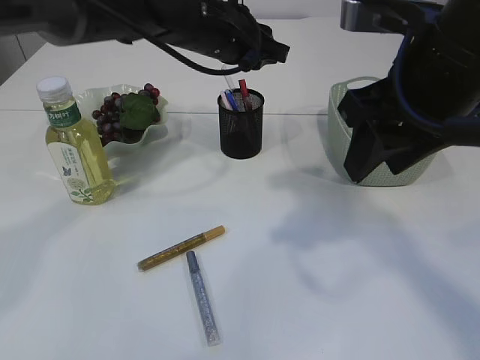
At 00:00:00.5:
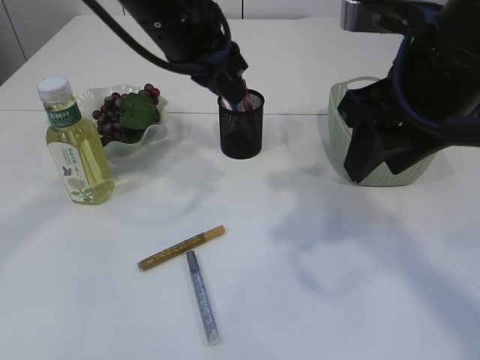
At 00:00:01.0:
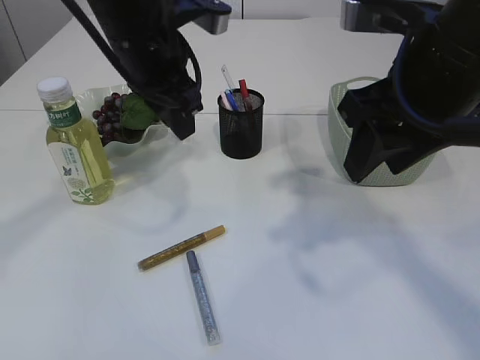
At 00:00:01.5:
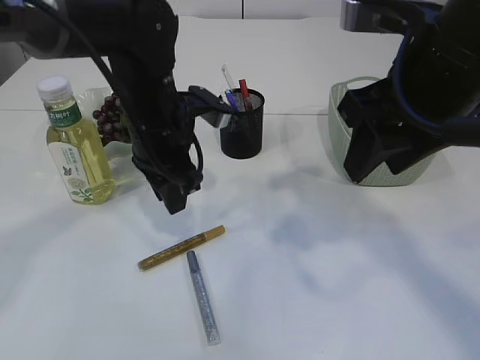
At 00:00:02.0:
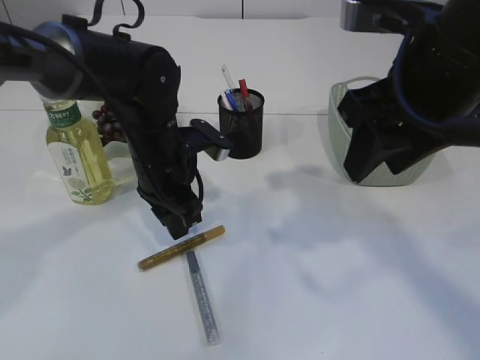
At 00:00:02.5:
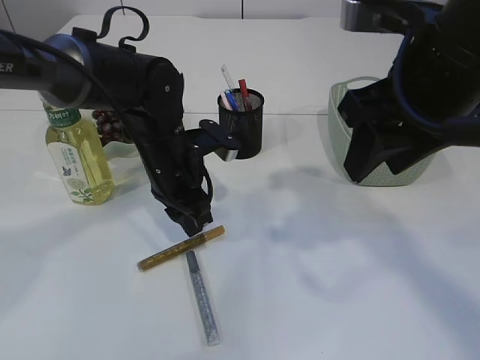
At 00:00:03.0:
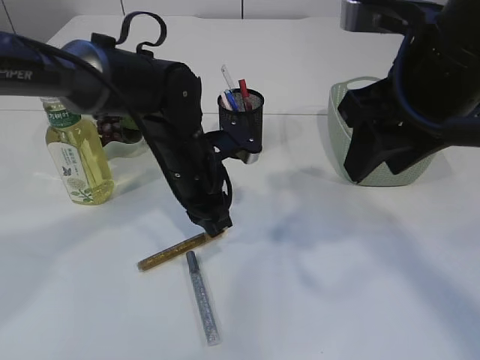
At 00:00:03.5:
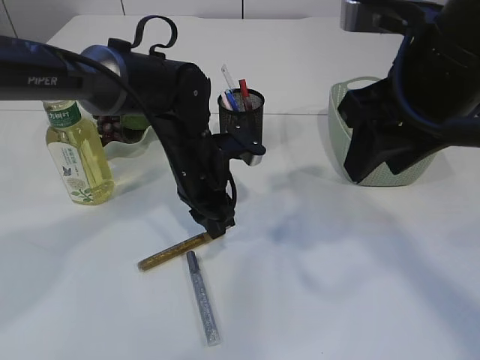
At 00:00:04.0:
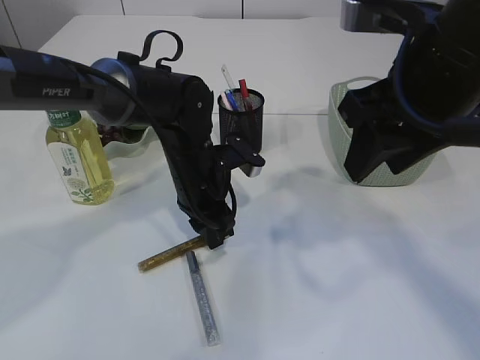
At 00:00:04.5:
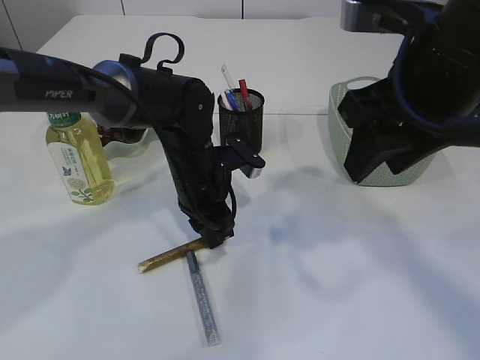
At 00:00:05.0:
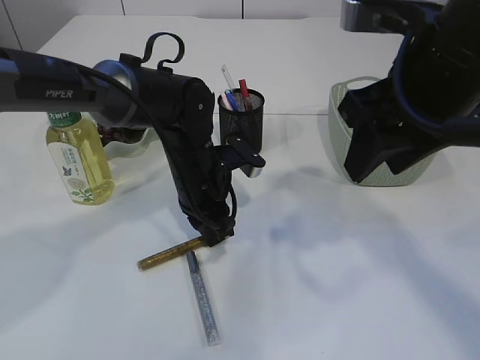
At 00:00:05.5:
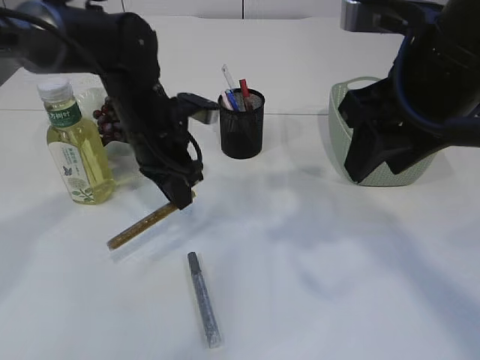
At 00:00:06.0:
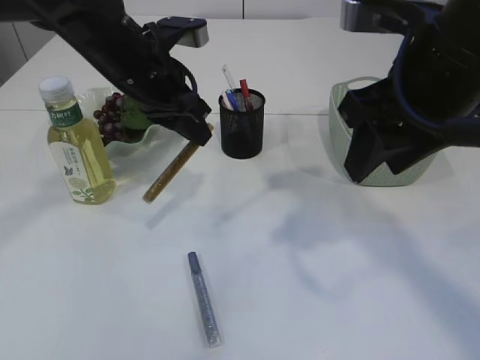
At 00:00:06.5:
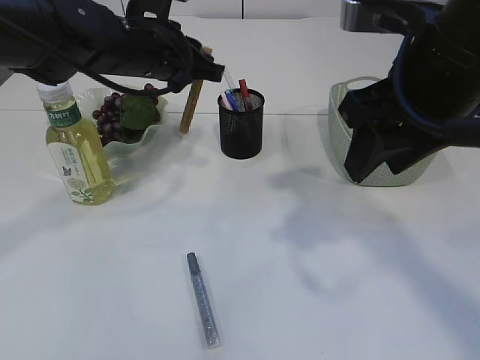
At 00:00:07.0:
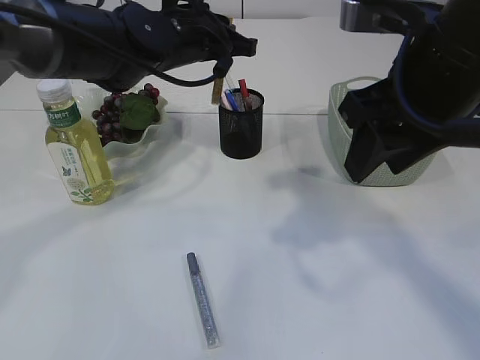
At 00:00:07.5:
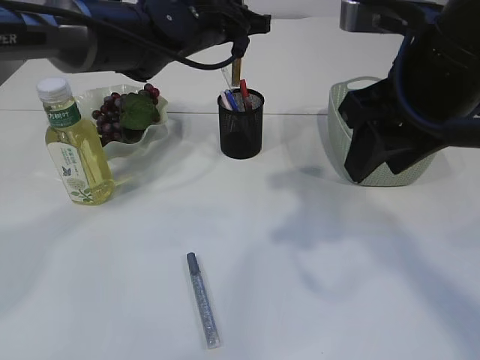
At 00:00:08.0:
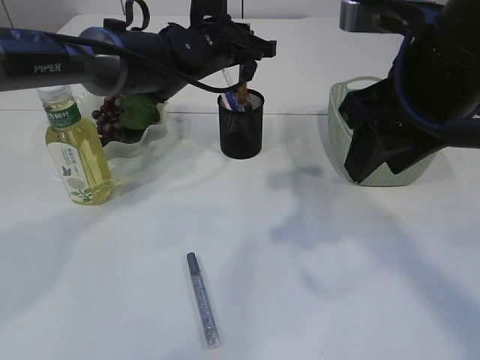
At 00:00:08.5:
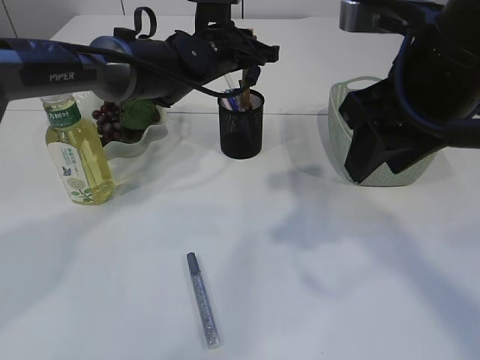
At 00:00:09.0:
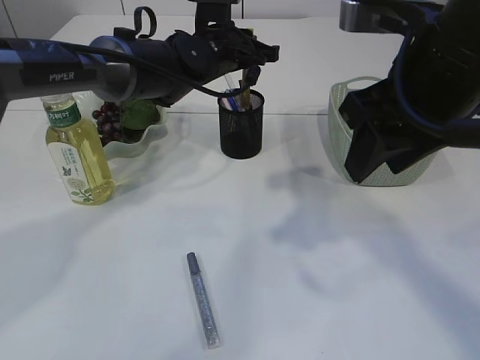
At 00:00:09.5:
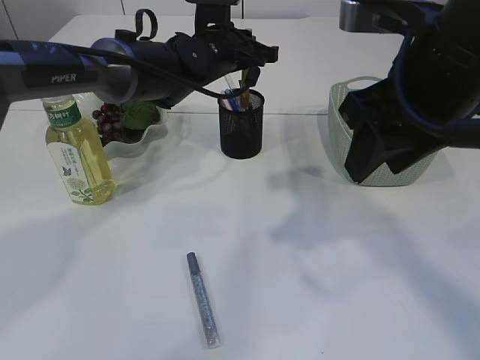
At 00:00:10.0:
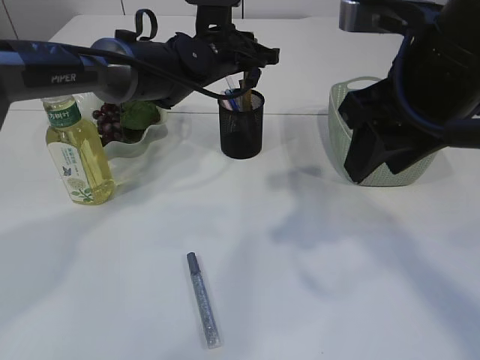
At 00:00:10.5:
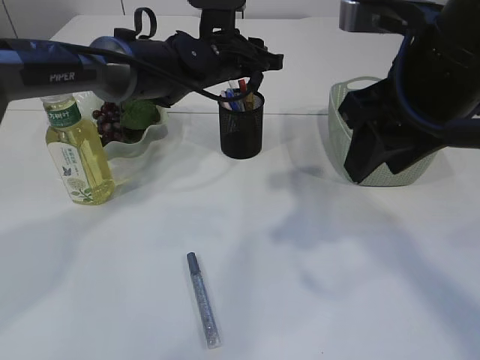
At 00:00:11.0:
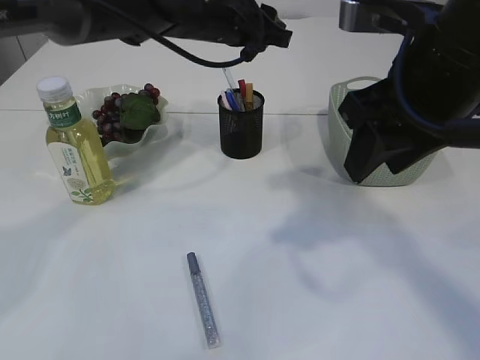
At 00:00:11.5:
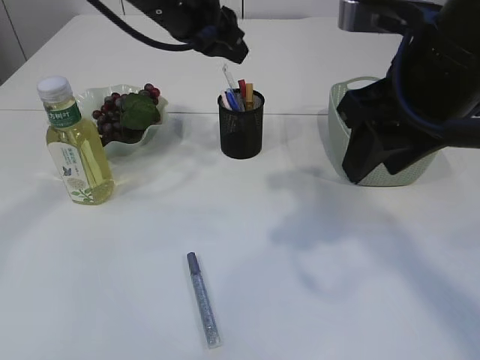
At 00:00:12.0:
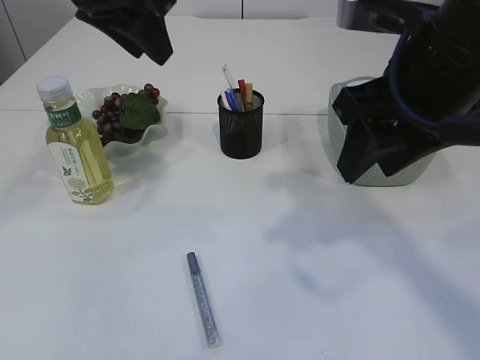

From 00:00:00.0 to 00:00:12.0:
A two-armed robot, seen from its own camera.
Step, from 00:00:00.5 to 00:00:05.5: pick up the yellow glue.
Step, from 00:00:06.0 to 00:00:10.5: place the yellow glue into the pen holder.
From 00:00:00.0 to 00:00:02.0: The left gripper shifts about 15 cm downward, backward and to the left.
From 00:00:02.0 to 00:00:04.0: The left gripper changes place by about 5 cm.
From 00:00:04.0 to 00:00:06.0: The left gripper goes approximately 15 cm upward and to the left.
From 00:00:06.0 to 00:00:08.0: The left gripper moves forward and to the right, about 10 cm.
From 00:00:08.0 to 00:00:10.0: The grippers stay close to where they were, moving slightly.
From 00:00:10.0 to 00:00:12.0: The left gripper shifts about 25 cm upward, backward and to the left.

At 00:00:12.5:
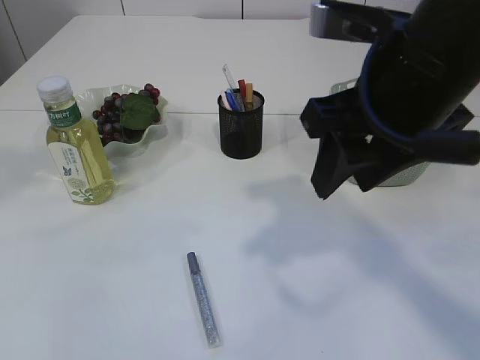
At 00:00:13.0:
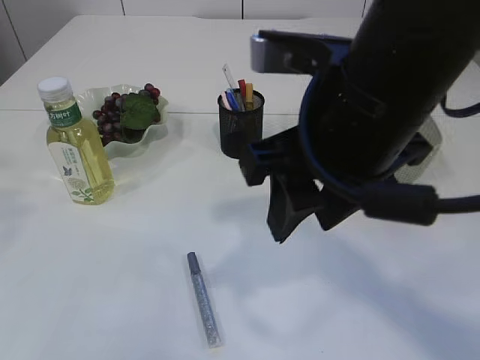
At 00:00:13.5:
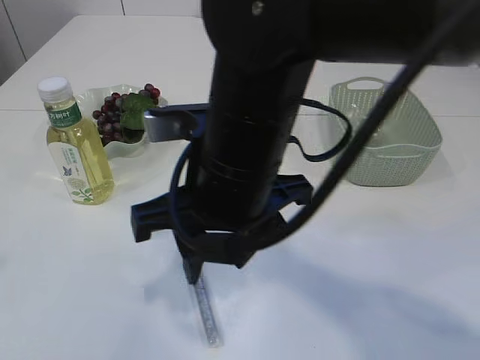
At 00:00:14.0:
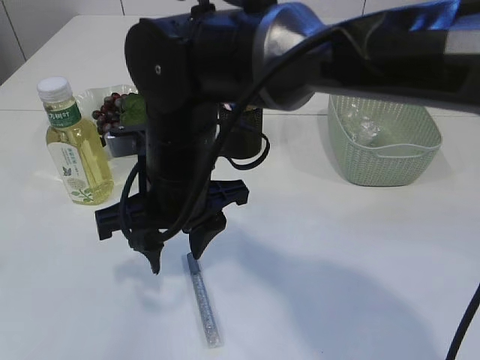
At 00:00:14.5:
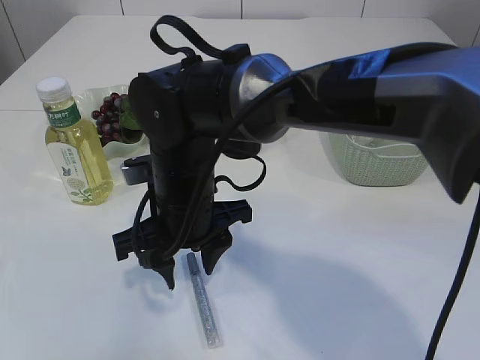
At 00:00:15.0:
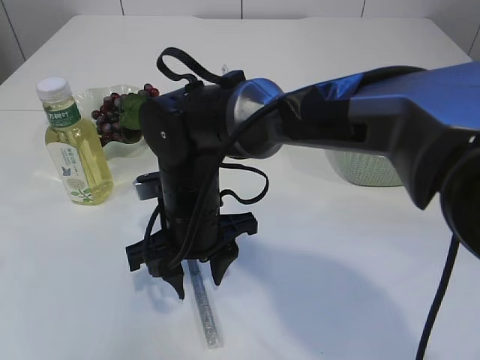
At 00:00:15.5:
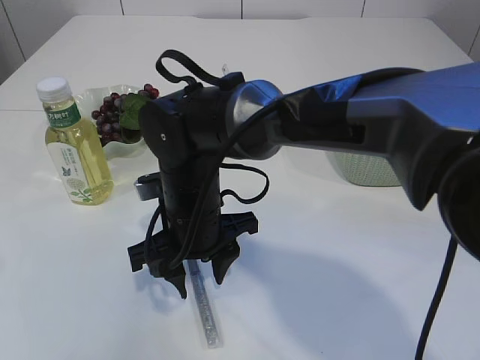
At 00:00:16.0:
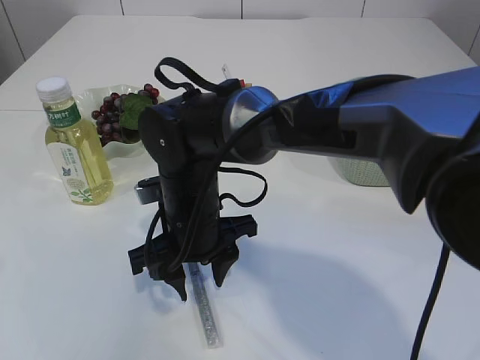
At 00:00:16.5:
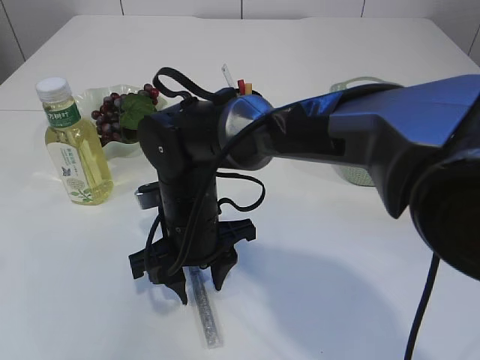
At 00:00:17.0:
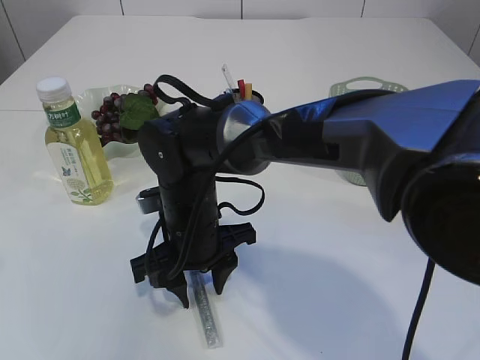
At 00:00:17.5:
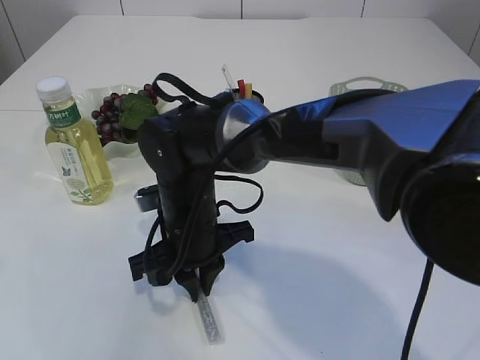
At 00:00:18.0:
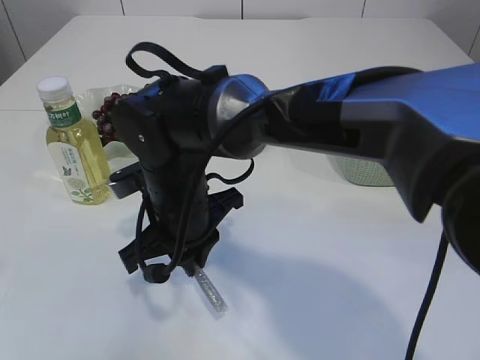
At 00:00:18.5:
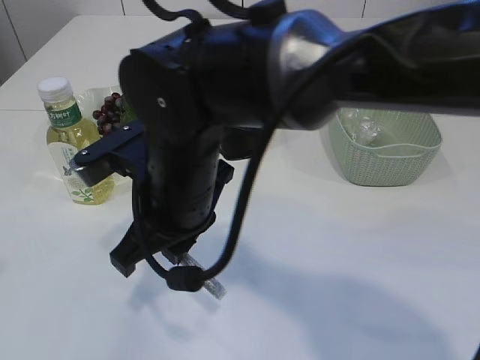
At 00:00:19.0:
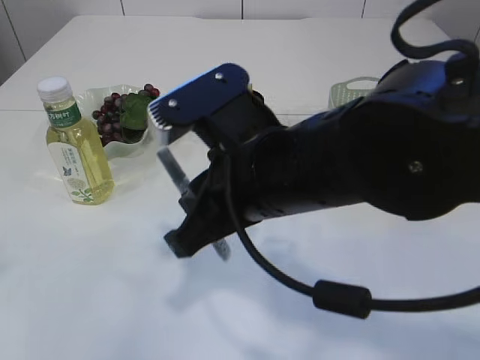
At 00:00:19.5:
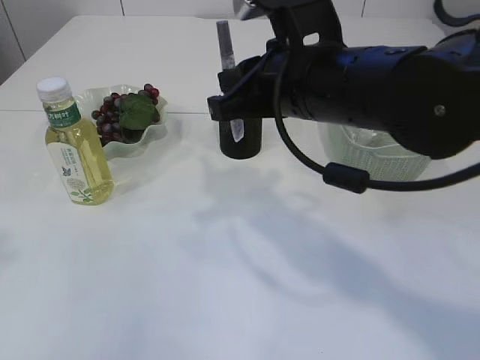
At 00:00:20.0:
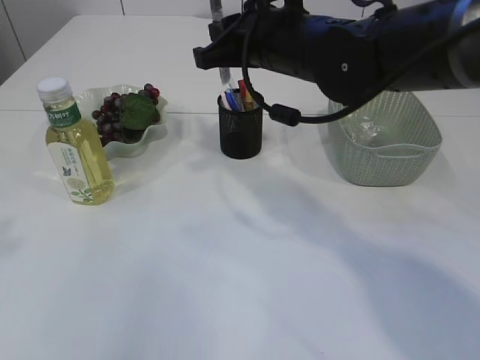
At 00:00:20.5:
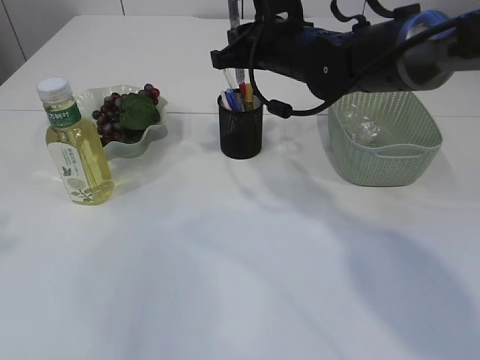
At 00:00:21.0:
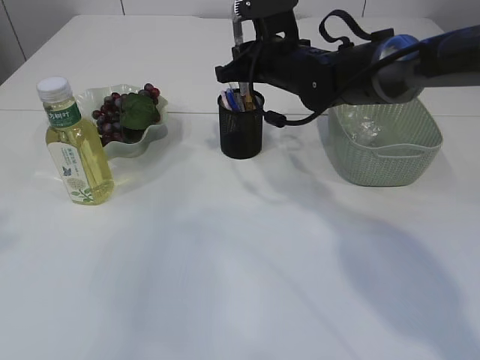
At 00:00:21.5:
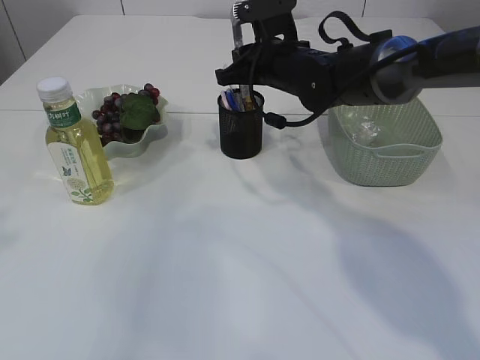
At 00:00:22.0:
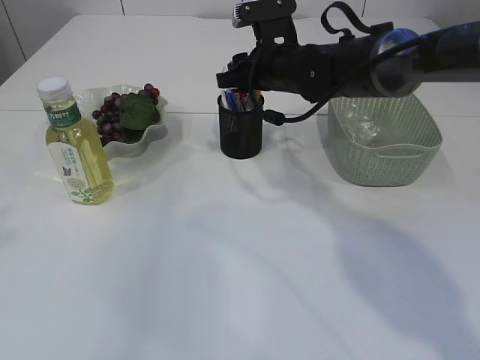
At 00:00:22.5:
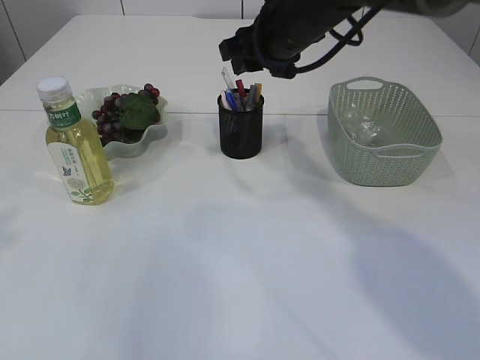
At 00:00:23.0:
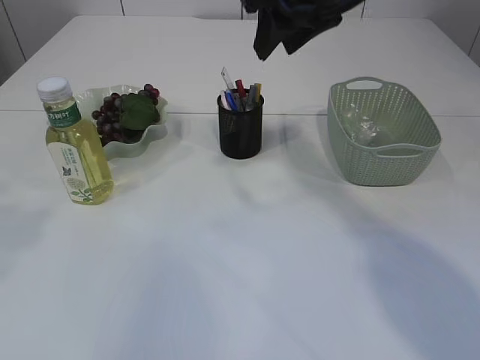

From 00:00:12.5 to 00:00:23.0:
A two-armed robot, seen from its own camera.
Step, from 00:00:12.5 to 00:00:18.0: pick up the silver glue.
Step, from 00:00:18.5 to 00:00:22.5: place the silver glue into the pen holder.
From 00:00:12.5 to 00:00:14.5: The right gripper moves to the left and downward, roughly 25 cm; the left gripper goes roughly 20 cm backward, to the left and downward.
From 00:00:16.5 to 00:00:19.0: The right gripper heads upward, backward and to the right, covering approximately 15 cm, and closes its fingers.
From 00:00:19.0 to 00:00:21.0: The right gripper shifts approximately 25 cm forward.
From 00:00:21.0 to 00:00:23.0: The left gripper opens its fingers; the right gripper goes about 15 cm upward and backward, and opens up.

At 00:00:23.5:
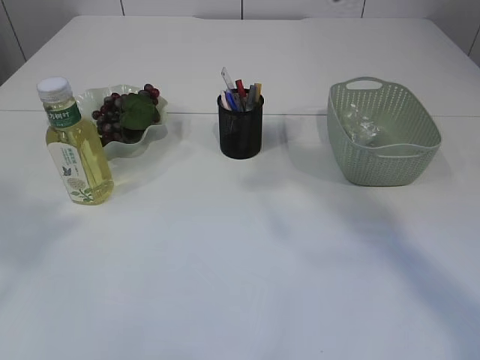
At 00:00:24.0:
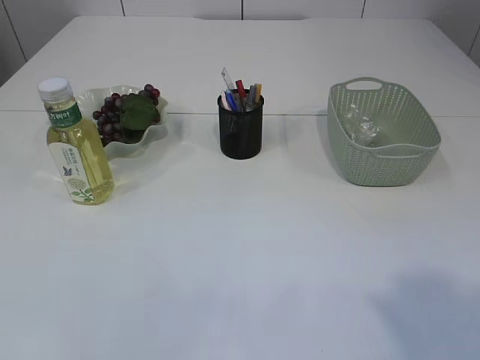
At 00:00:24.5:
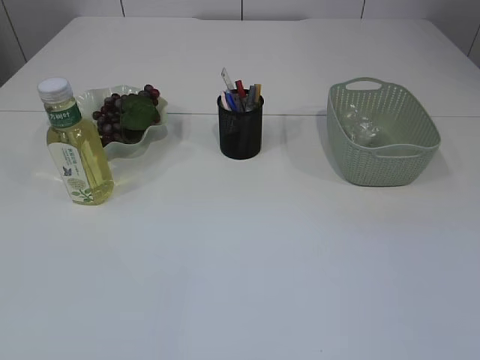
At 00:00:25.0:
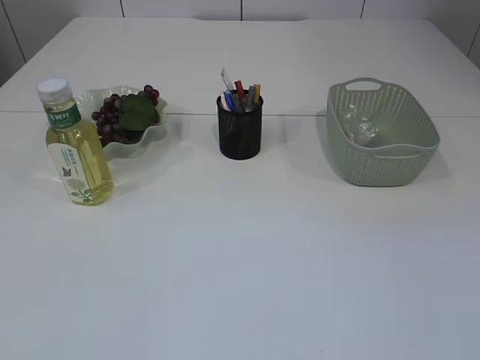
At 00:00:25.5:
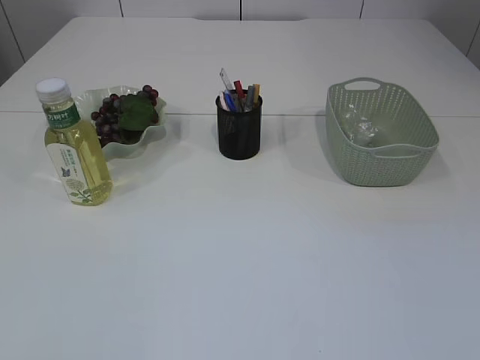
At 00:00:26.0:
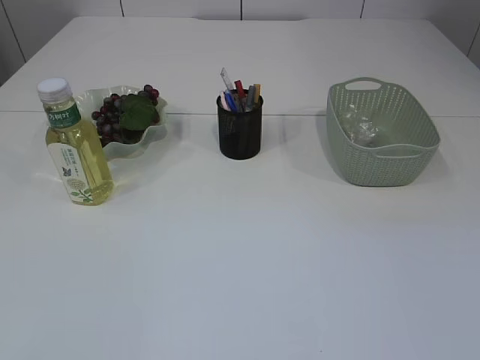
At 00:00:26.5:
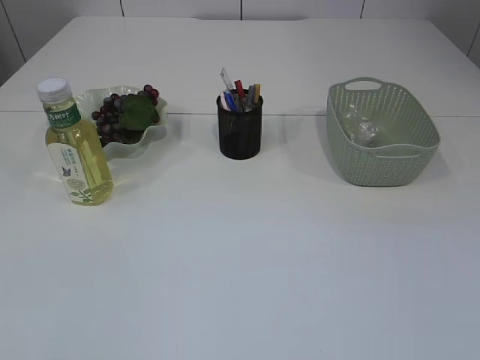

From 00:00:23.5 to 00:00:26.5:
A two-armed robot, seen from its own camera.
From 00:00:23.5 to 00:00:25.0: The right gripper shifts some 40 cm backward, downward and to the right.
